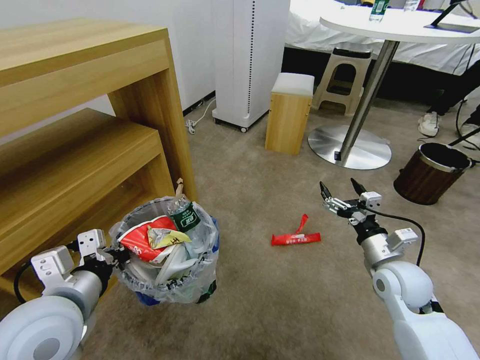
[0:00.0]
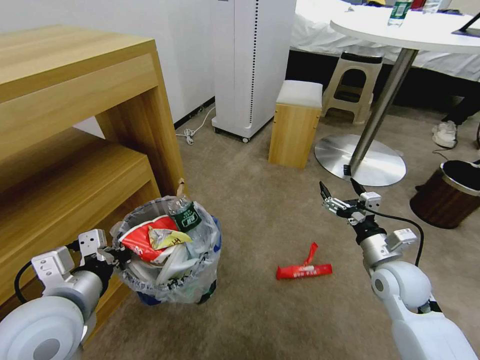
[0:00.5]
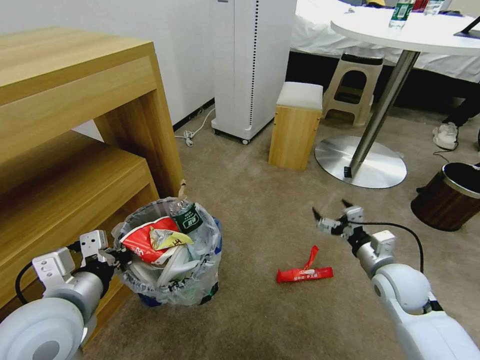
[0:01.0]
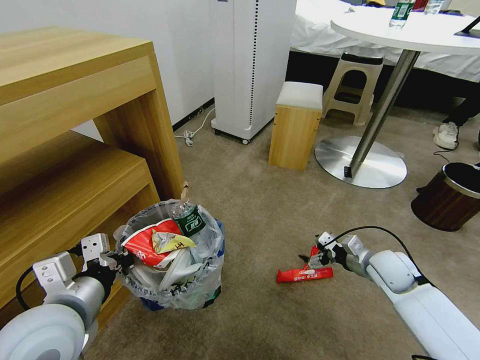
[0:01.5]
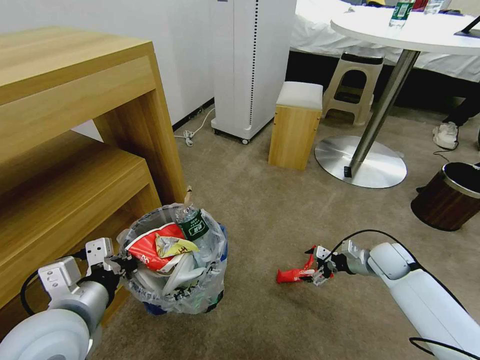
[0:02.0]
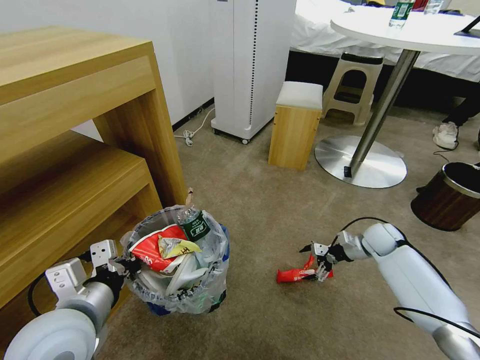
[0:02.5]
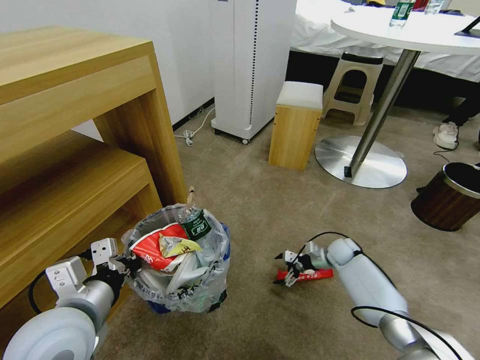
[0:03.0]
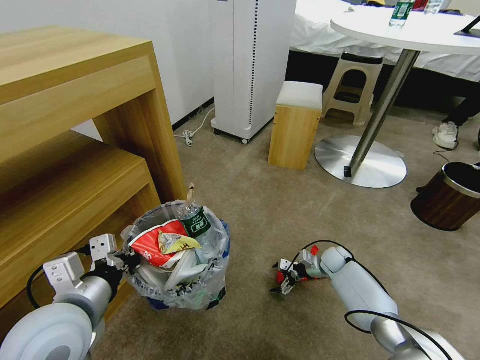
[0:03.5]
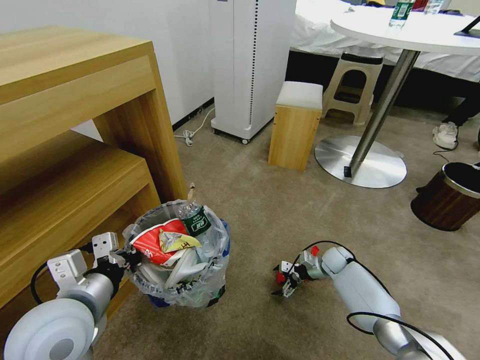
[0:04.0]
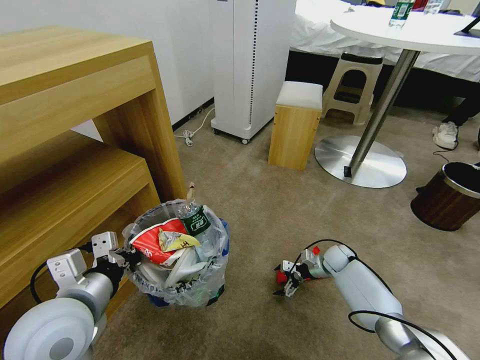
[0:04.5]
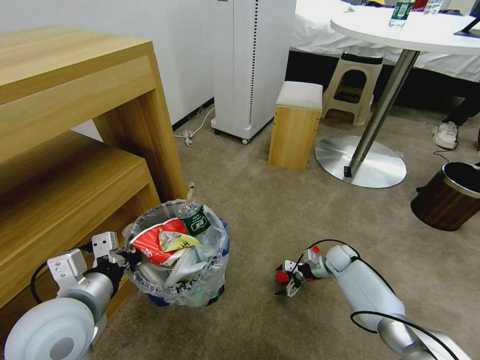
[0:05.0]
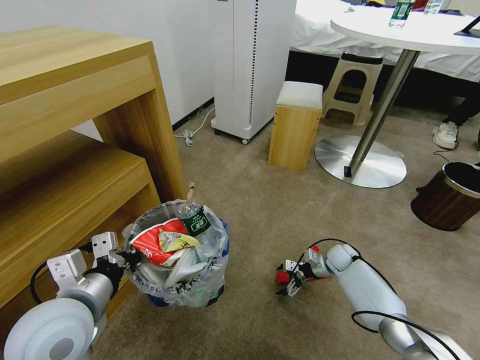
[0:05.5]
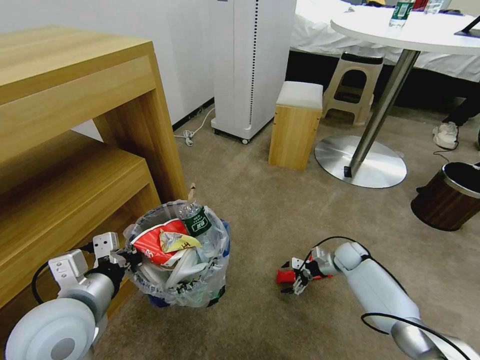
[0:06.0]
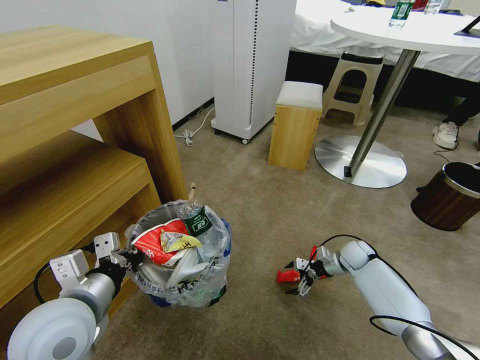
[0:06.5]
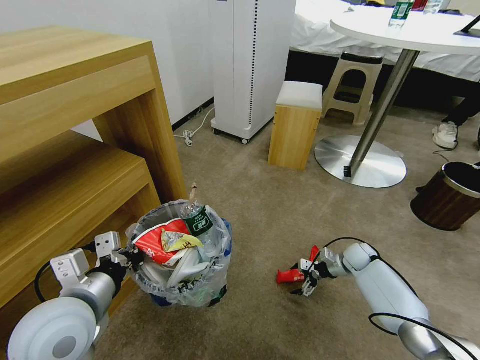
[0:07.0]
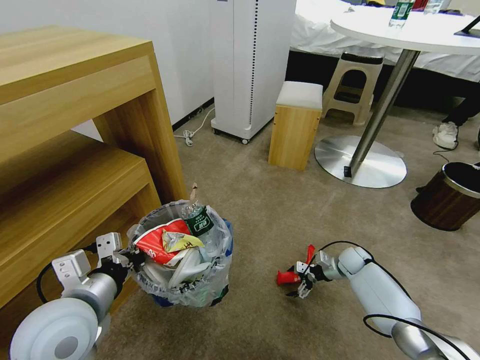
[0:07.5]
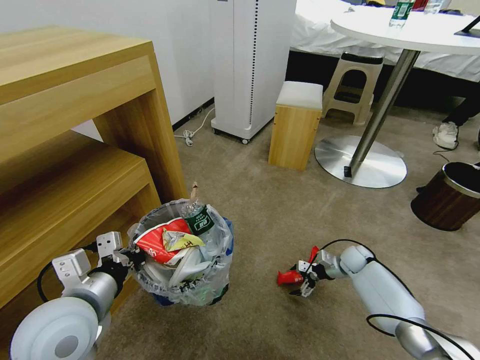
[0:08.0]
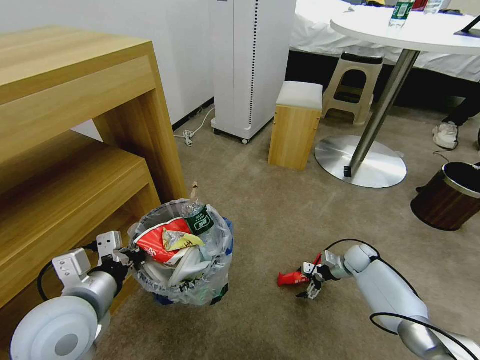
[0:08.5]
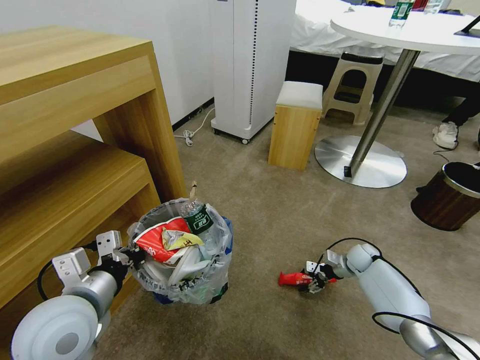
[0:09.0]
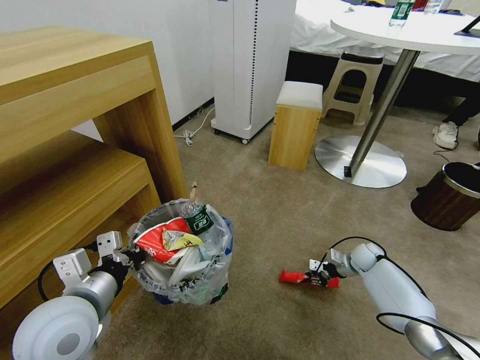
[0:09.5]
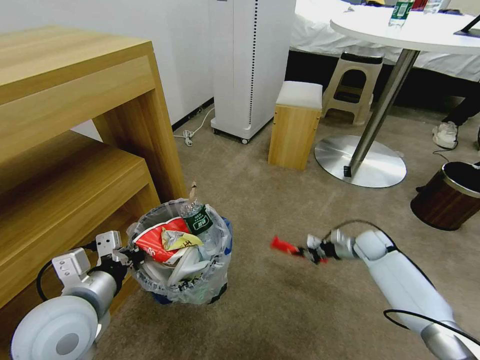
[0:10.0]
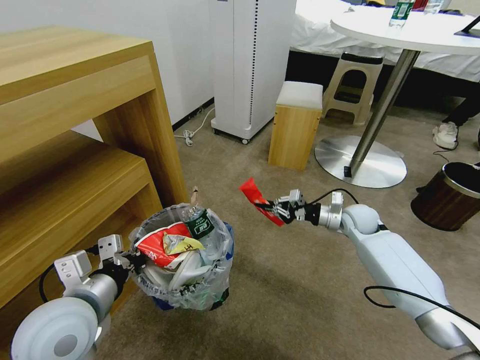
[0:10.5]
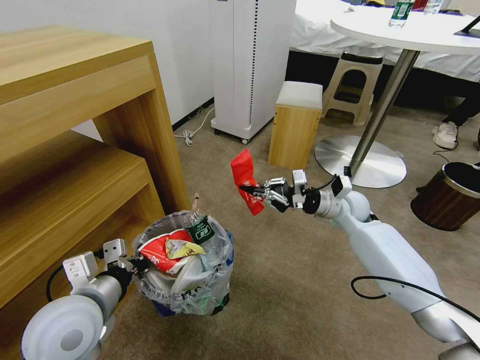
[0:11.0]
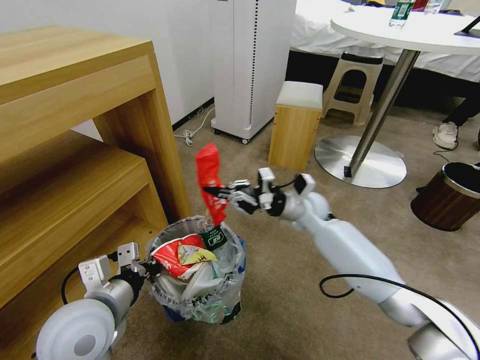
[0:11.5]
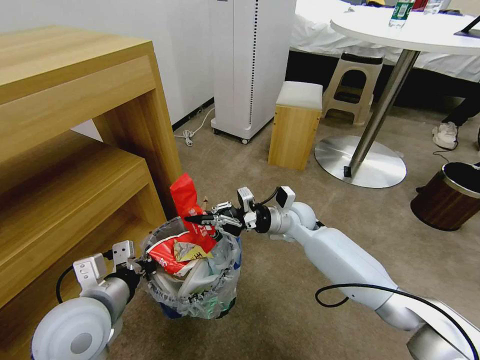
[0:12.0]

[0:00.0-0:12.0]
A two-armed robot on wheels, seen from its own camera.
Task of the whole recording: Pick up the trash bin and place the garbage on the floor into it.
0:00.0 to 0:02.0: The right gripper moves forward, downward and to the right, approximately 15 cm.
0:02.0 to 0:04.0: The right gripper goes roughly 15 cm downward, to the left and forward.
0:04.0 to 0:06.0: There are only small adjustments of the grippers.
0:06.0 to 0:08.0: The grippers make only small movements.
0:08.0 to 0:10.0: The right gripper is displaced upward by approximately 10 cm, and closes its fingers.
0:10.0 to 0:12.0: The right gripper is displaced to the left and upward by roughly 25 cm.

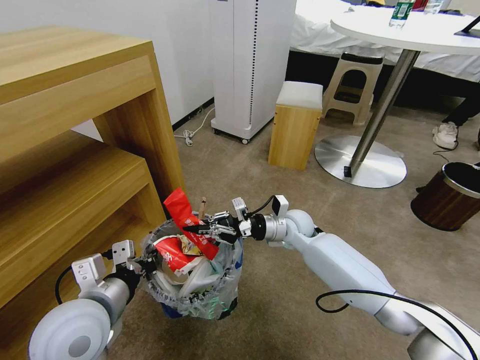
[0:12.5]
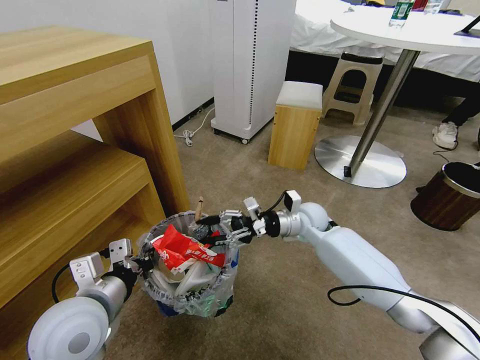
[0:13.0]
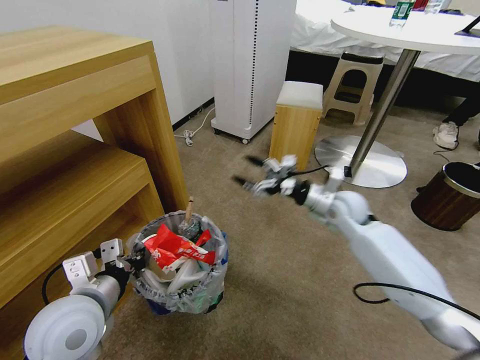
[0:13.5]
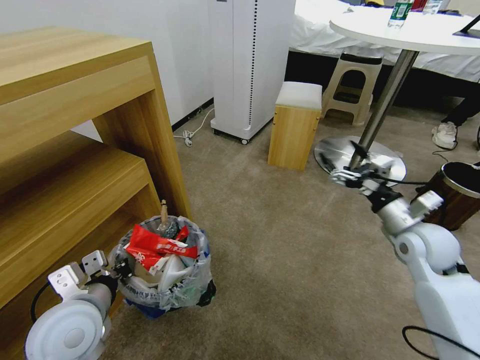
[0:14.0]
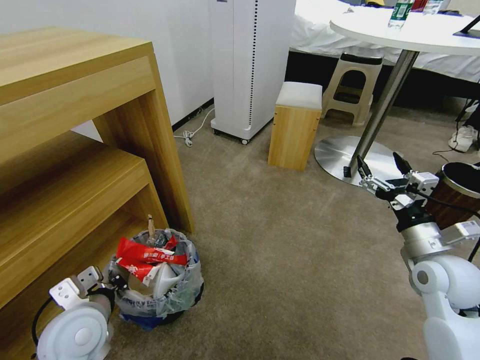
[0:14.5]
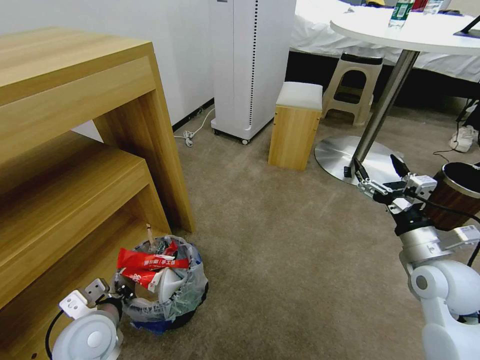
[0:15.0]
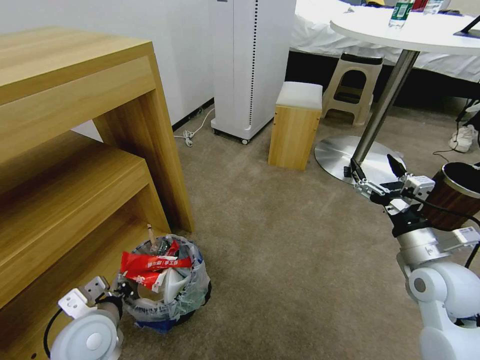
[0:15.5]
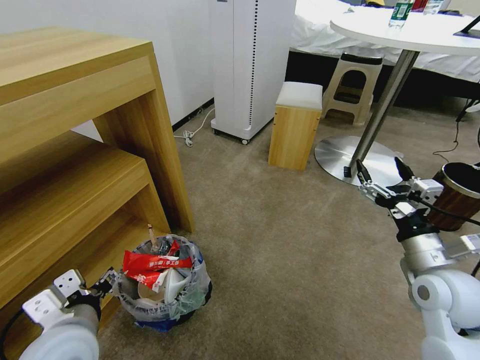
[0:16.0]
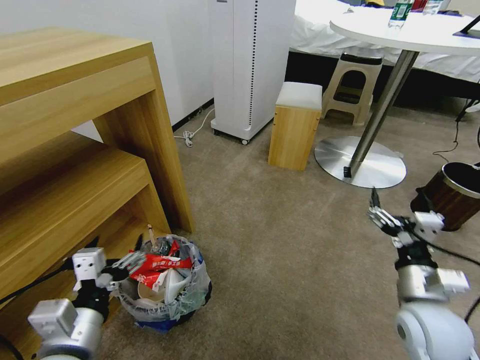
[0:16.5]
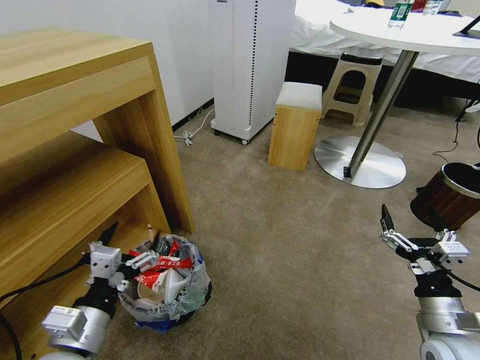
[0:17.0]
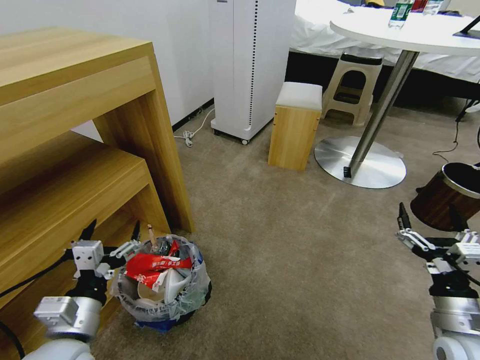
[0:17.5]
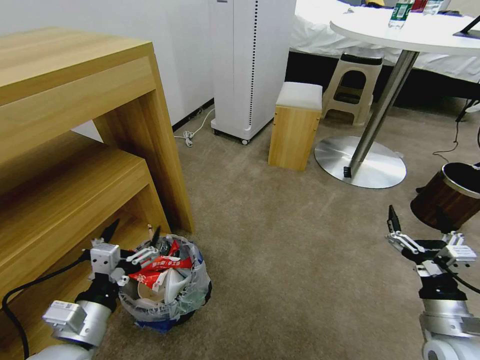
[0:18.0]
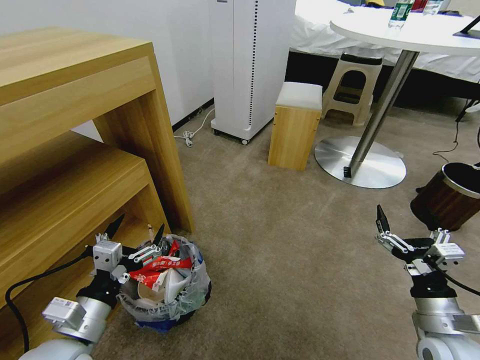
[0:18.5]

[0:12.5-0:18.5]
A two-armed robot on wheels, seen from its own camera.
Task of the whole recording: Pick up the trash bin and place the garbage on the floor into it.
0:12.5 to 0:14.5: The right gripper shifts roughly 30 cm to the right and backward, and opens its fingers. The left gripper goes about 5 cm downward.
0:14.5 to 0:16.5: The right gripper is displaced backward and to the left by roughly 10 cm. Meanwhile the left gripper goes approximately 10 cm backward and upward, and opens its fingers.
0:16.5 to 0:18.5: The left gripper moves about 5 cm. Meanwhile the right gripper shifts by some 5 cm.
